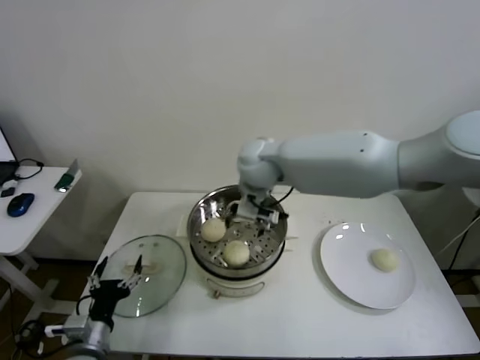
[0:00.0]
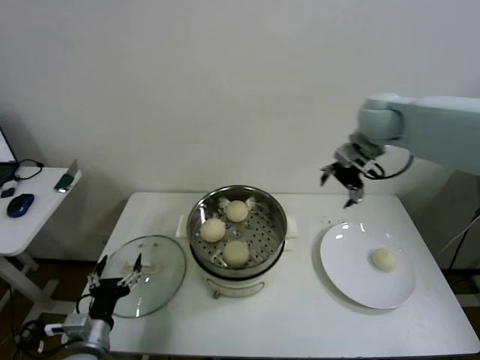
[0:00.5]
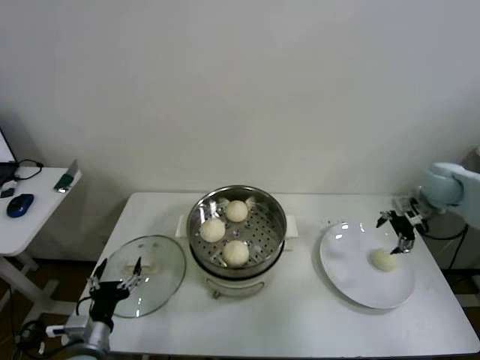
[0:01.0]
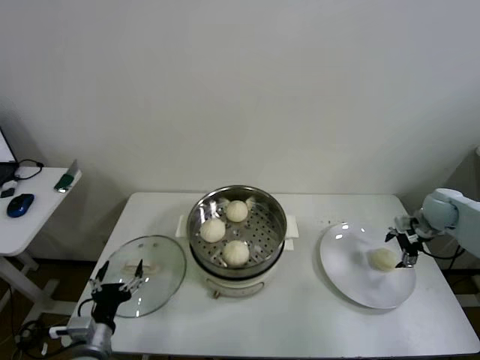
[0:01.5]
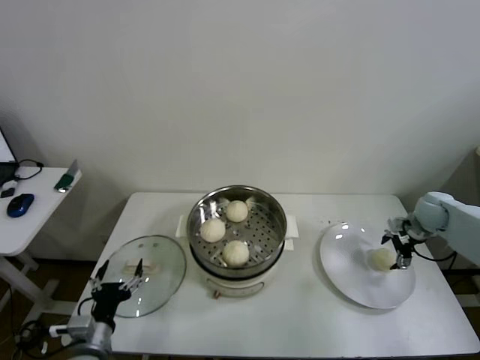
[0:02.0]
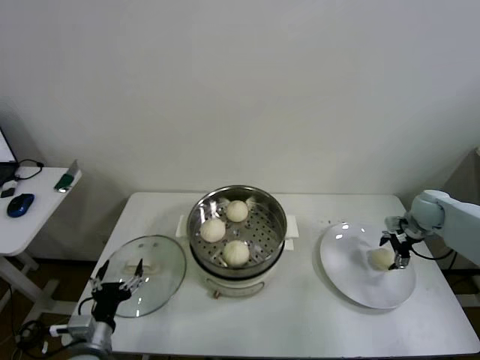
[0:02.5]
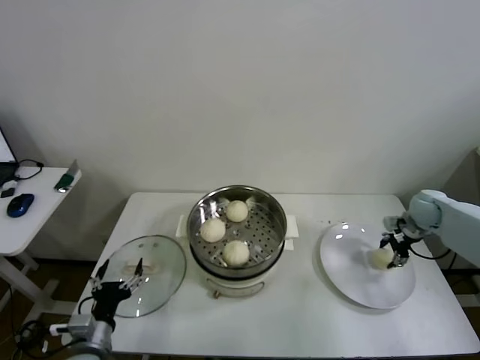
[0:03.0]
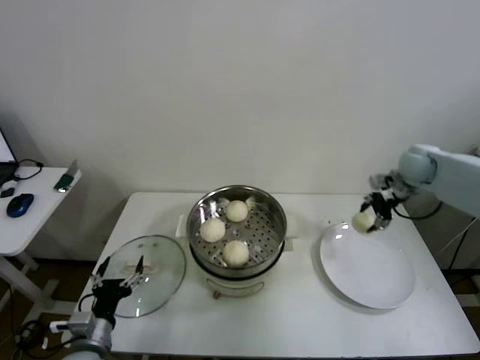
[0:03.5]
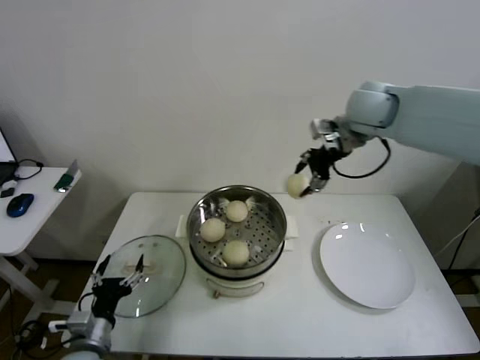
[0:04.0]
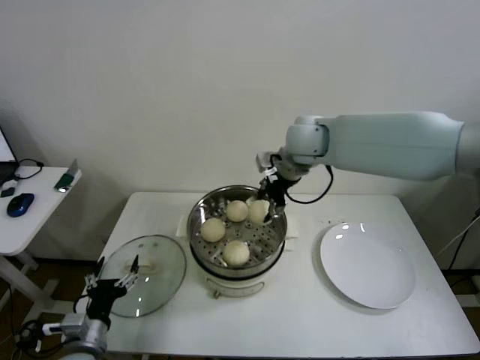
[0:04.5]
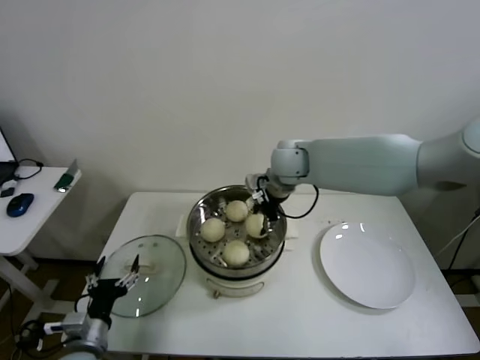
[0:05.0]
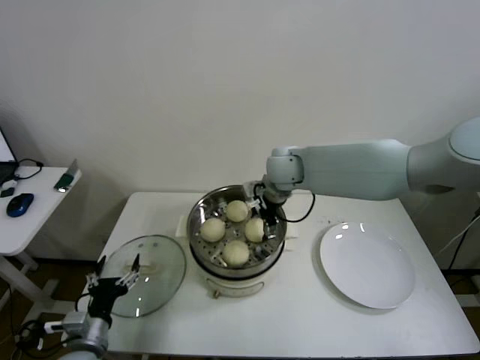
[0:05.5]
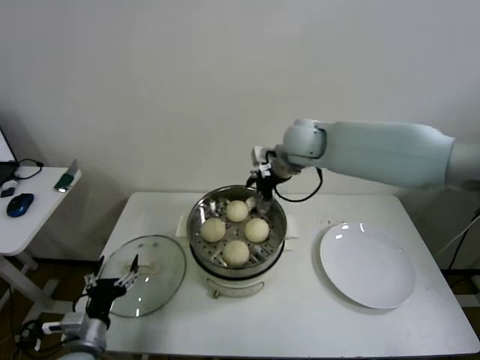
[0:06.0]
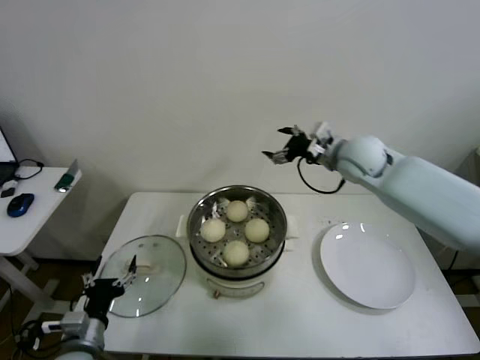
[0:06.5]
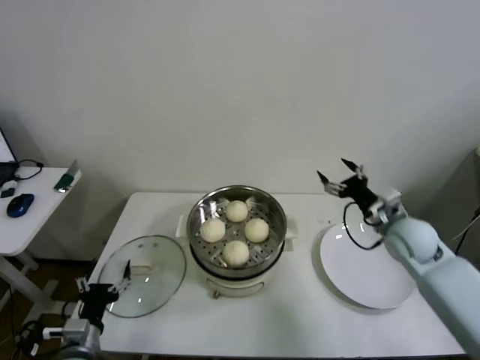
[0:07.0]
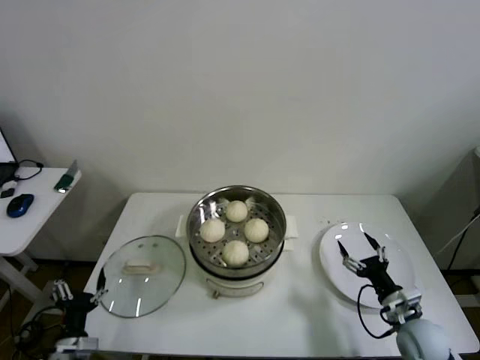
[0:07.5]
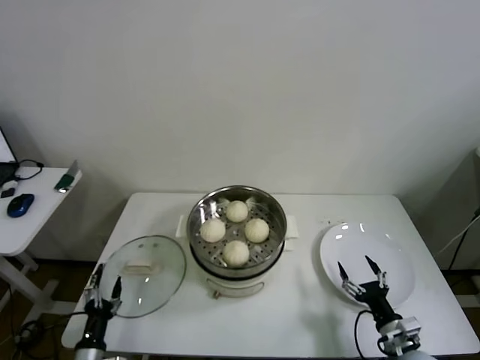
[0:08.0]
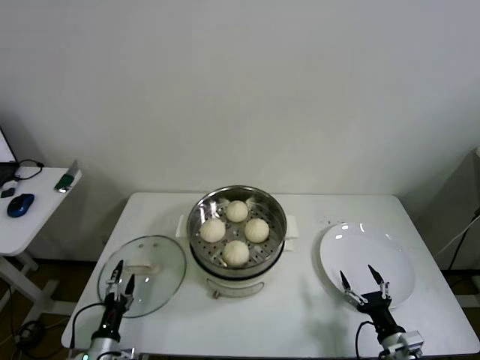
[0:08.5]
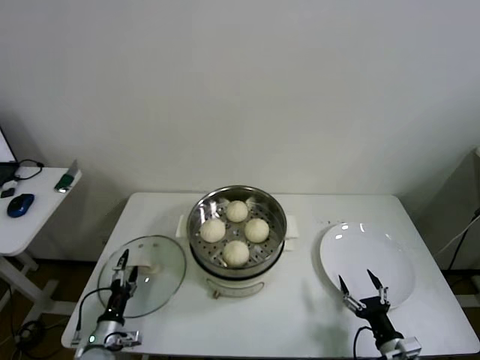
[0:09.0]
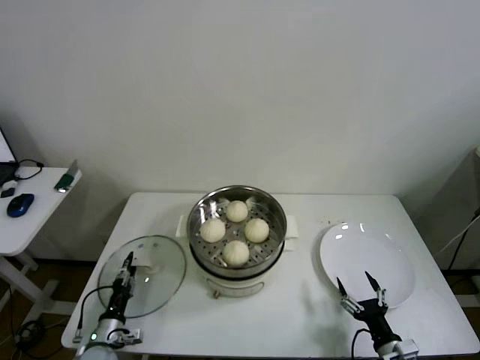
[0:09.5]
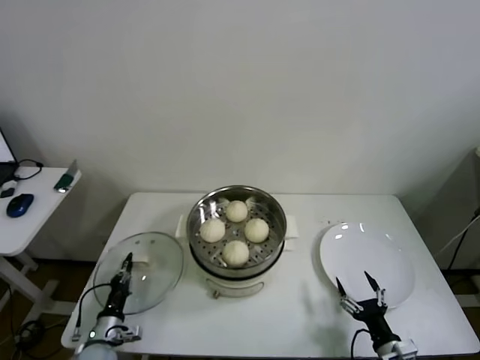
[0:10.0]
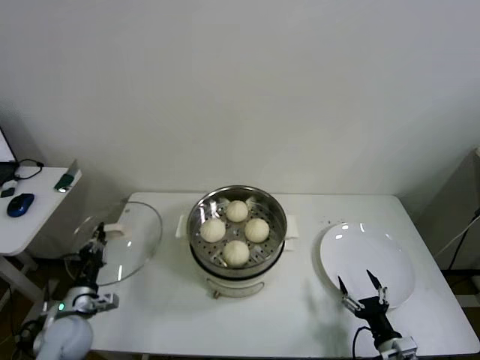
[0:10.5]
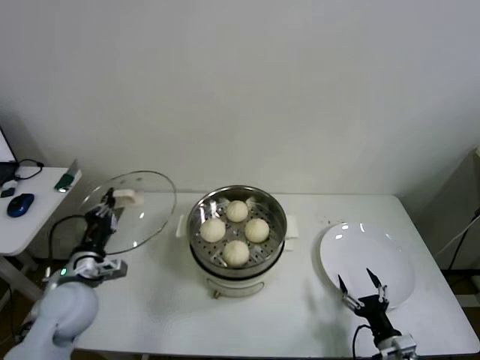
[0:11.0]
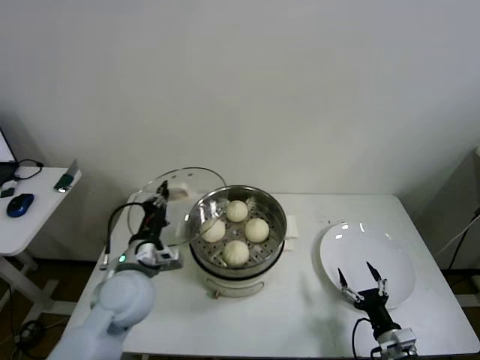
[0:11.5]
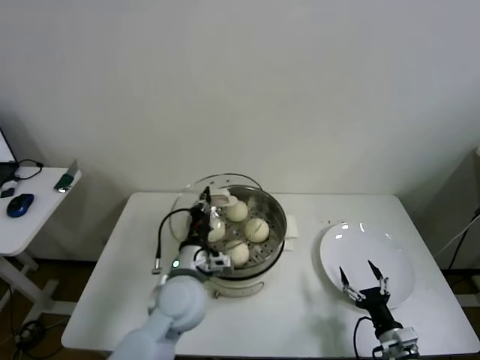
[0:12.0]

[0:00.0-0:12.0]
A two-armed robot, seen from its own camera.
Step, 0:00.5 to 0:02.5: Grasp the baozi in the plate with right gripper.
Step, 0:03.5 to 0:05.5: Place the baozi on the steamer with right gripper.
Step, 0:06.0 to 0:09.5: Grasp the pot lid with left gripper.
0:00.0 to 0:02.0: The right gripper goes approximately 50 cm to the right and downward.
0:02.0 to 0:04.0: The right gripper goes roughly 35 cm upward and to the left, and closes up.
0:04.0 to 0:06.0: The right gripper goes approximately 15 cm to the left and downward, and opens up.
0:06.0 to 0:08.0: The right gripper is displaced downward, backward and to the right by about 60 cm, while the left gripper moves downward, some 10 cm.
0:08.0 to 0:10.0: The left gripper is displaced forward by some 10 cm, and closes its fingers.
0:10.0 to 0:12.0: The left gripper goes roughly 30 cm upward and to the right.

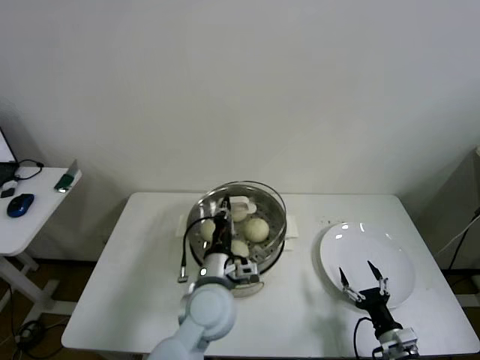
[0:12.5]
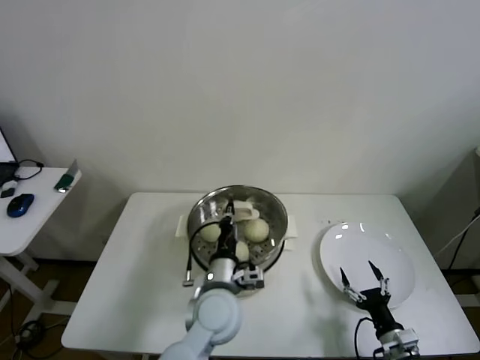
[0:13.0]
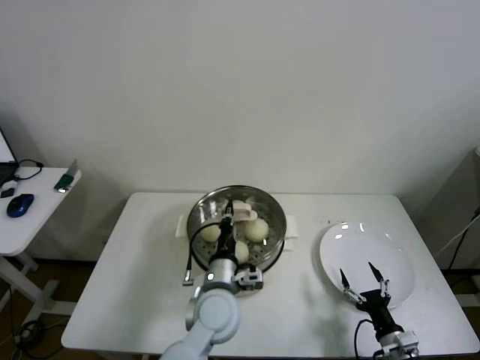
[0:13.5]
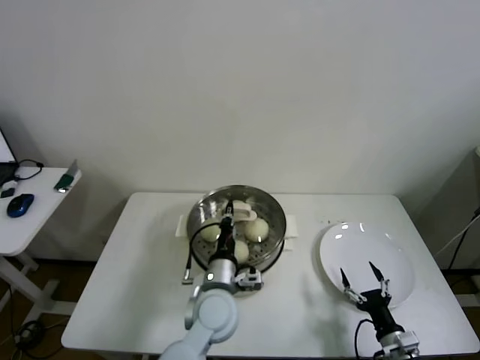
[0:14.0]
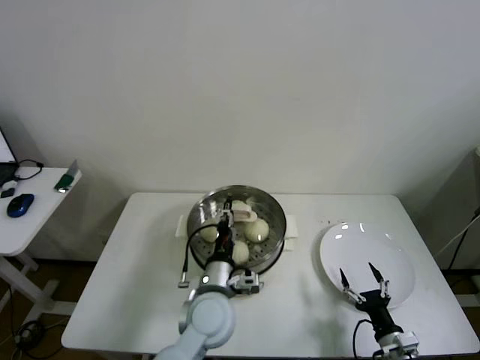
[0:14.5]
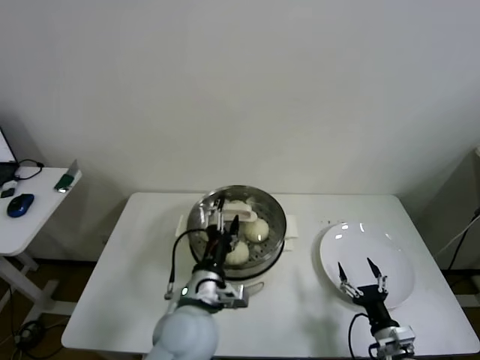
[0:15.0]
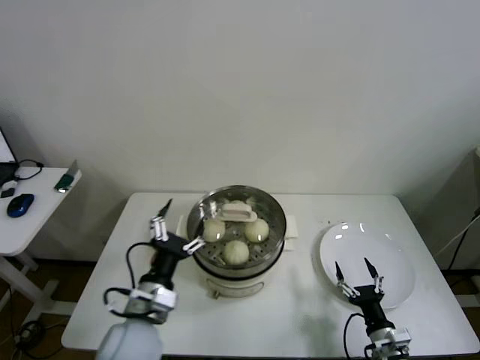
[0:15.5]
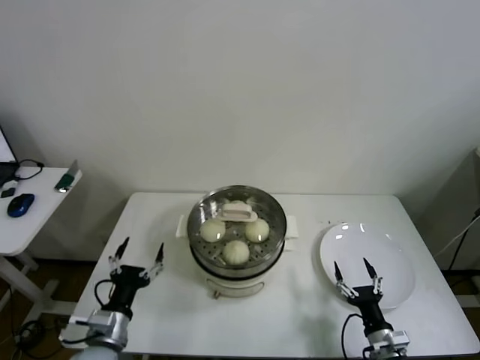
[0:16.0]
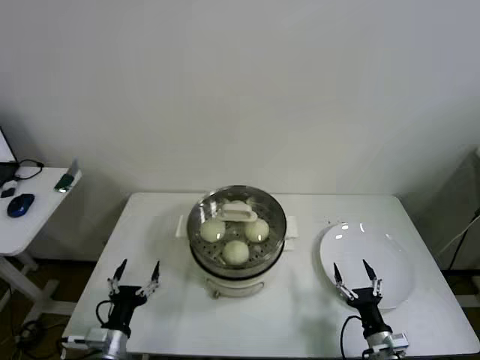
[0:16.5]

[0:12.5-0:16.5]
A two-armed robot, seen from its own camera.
Step, 0:12.5 to 0:14.5: Place the pot lid on the steamer with left gripper.
0:12.5 to 0:14.5: The grippers stay close to where they were, moving slightly.
0:14.5 to 0:16.5: The left gripper moves to the left, backward and downward, roughly 25 cm, and opens.

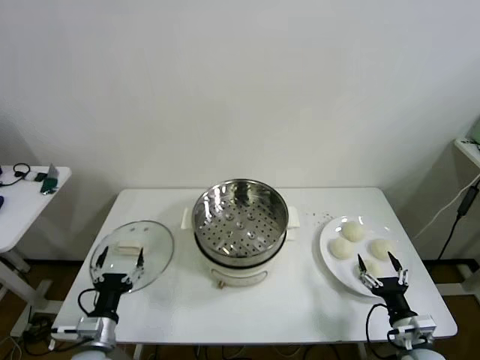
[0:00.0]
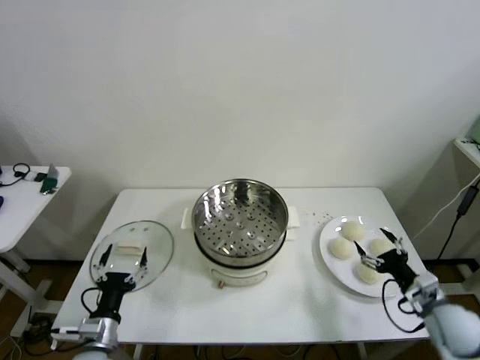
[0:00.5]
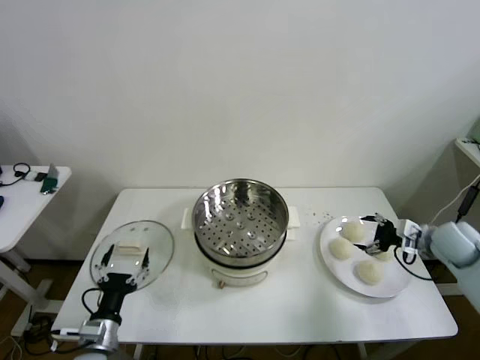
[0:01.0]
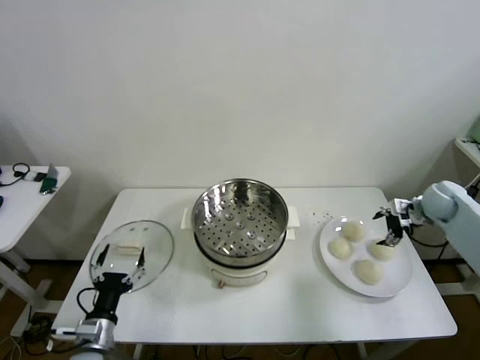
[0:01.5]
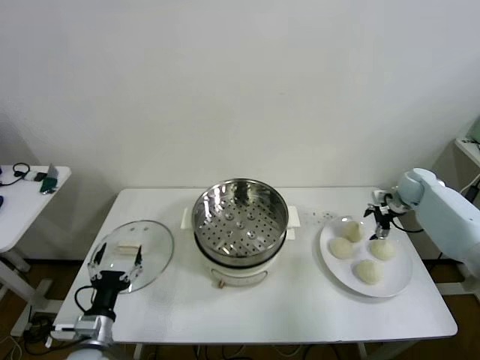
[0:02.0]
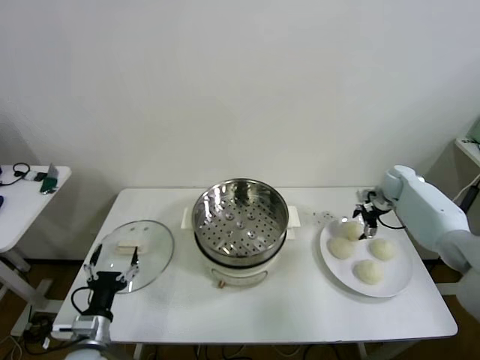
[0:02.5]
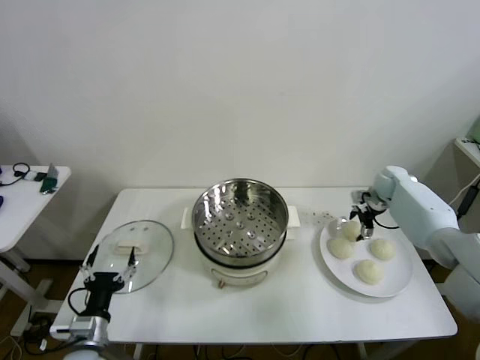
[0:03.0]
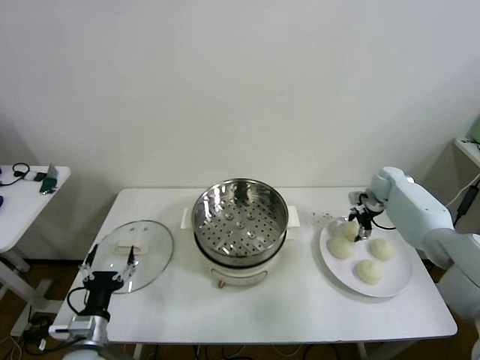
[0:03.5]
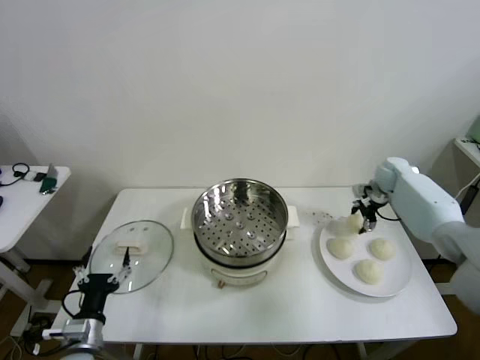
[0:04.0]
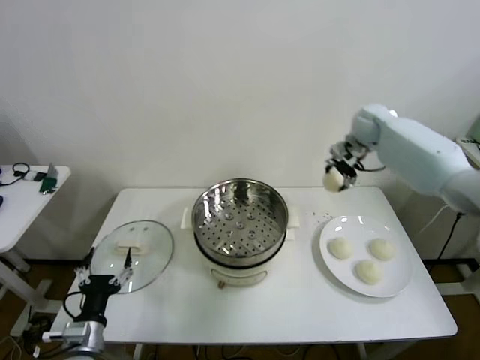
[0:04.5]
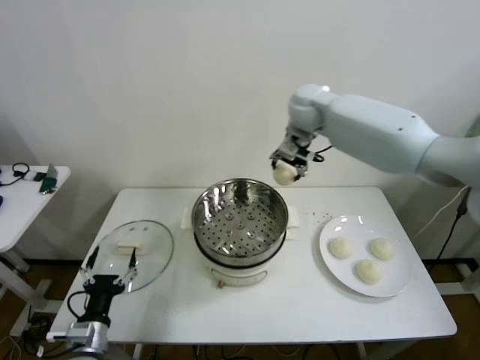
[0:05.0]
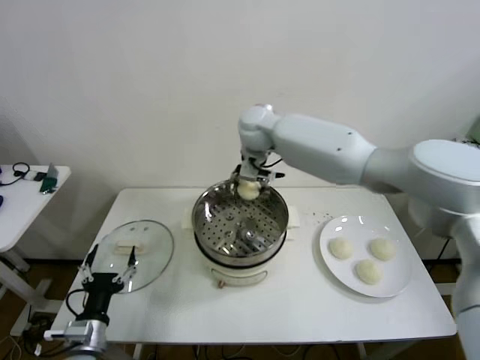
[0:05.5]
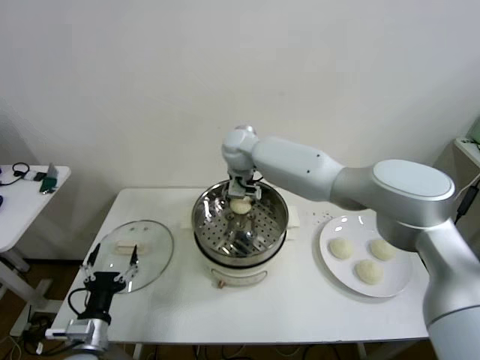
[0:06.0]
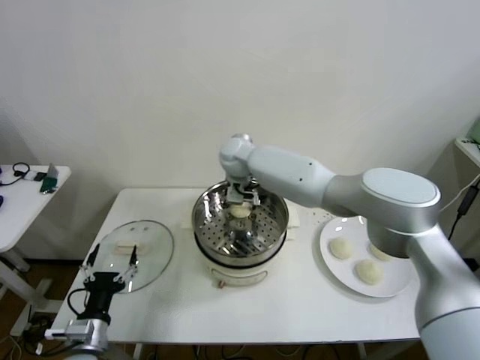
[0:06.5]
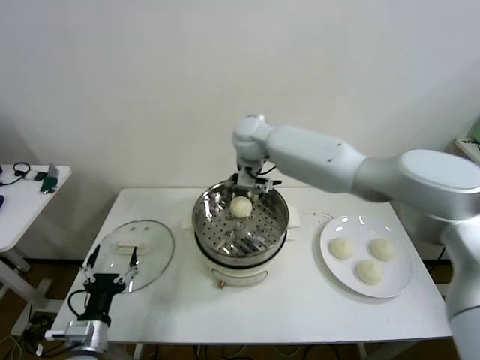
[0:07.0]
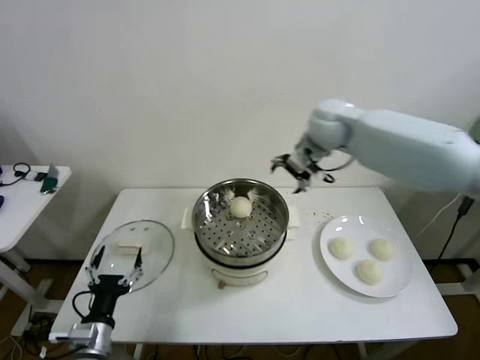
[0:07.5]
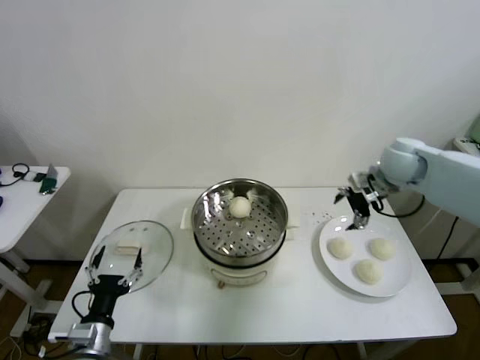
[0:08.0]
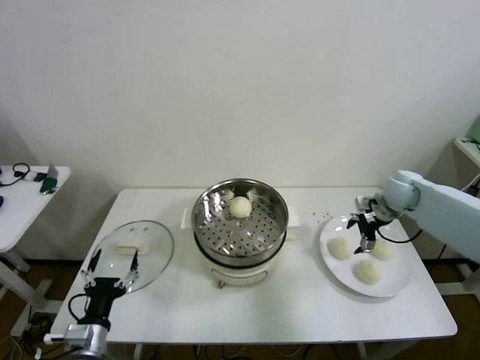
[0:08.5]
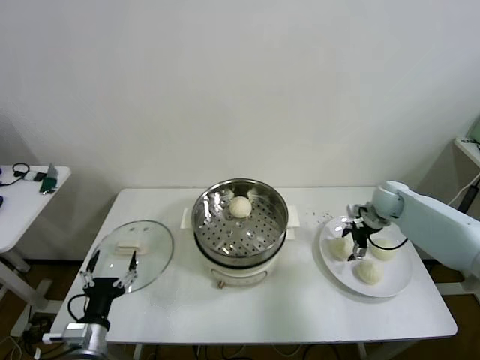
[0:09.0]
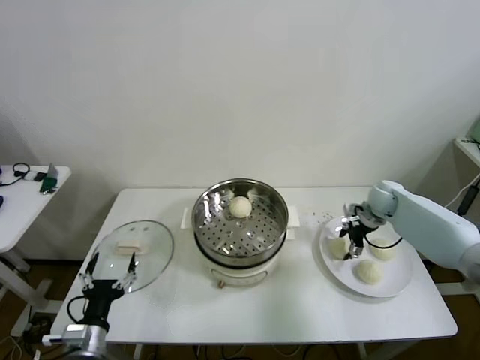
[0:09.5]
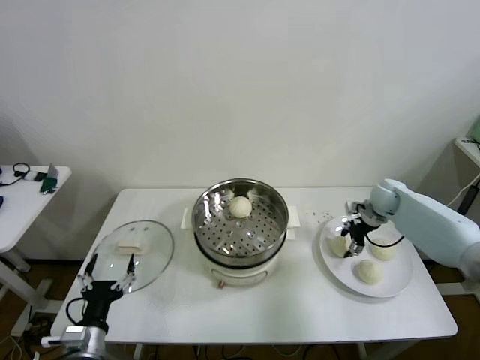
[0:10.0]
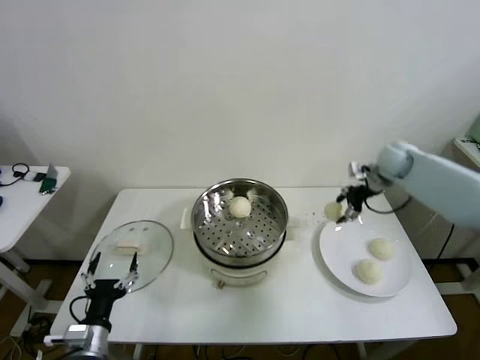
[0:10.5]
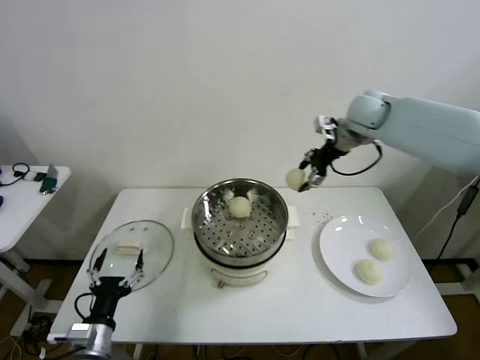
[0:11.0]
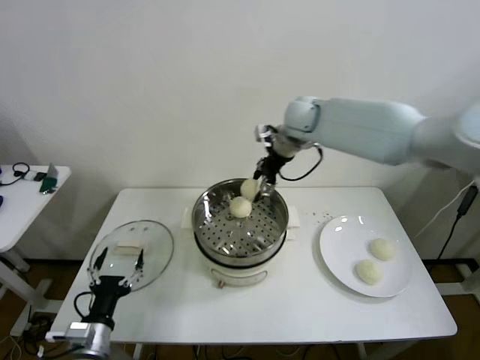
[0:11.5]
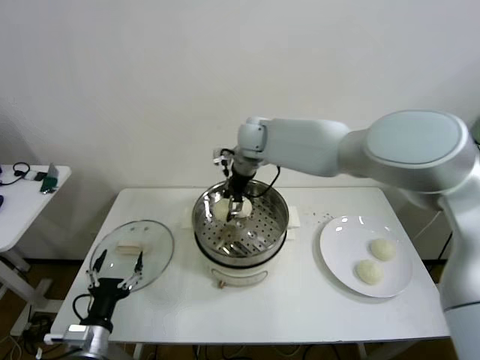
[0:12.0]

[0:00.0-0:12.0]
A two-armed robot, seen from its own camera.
Step, 0:00.0 to 0:03.5: Grasp the baozi in the plate with right gripper.
Step, 0:04.0 to 0:06.5: Place the baozi on the steamer with right gripper.
Step, 0:07.0 to 0:09.5: Grasp the baozi in the plate with right gripper.
0:02.0 to 0:04.0: The right gripper travels to the left by approximately 5 cm, and closes.
0:04.0 to 0:06.0: The right gripper shifts some 40 cm to the left.
0:06.0 to 0:08.0: The right gripper shifts about 40 cm to the right, and opens up.
0:08.0 to 0:10.0: The right gripper goes some 15 cm downward, and closes up.
0:10.0 to 0:12.0: The right gripper shifts some 40 cm to the left and upward.
